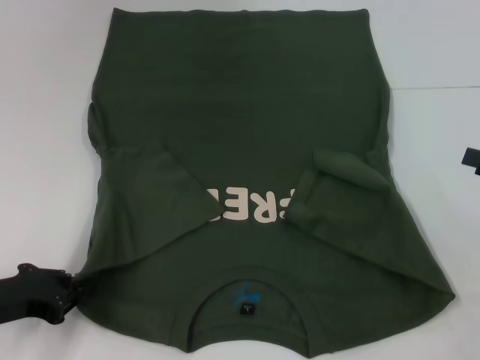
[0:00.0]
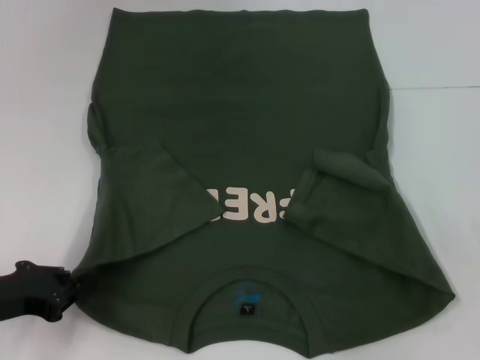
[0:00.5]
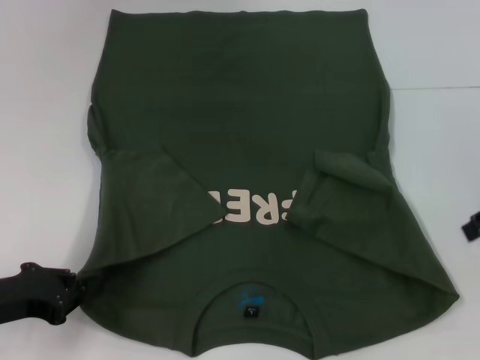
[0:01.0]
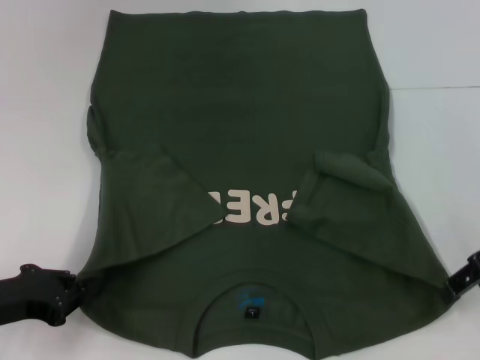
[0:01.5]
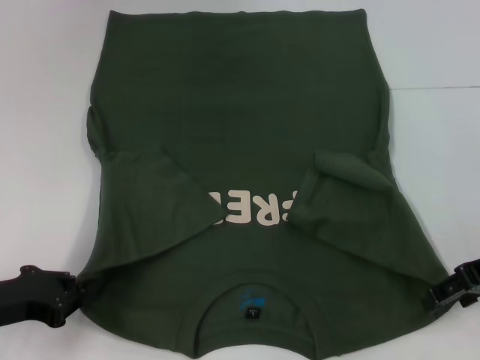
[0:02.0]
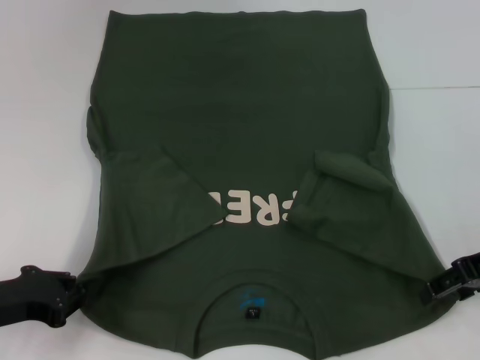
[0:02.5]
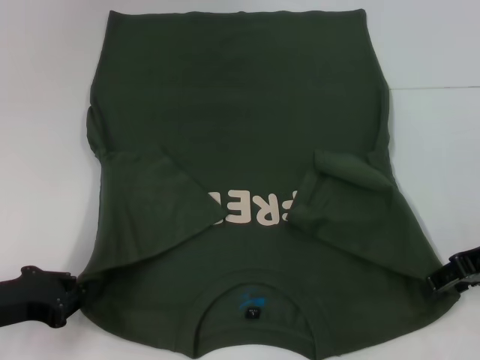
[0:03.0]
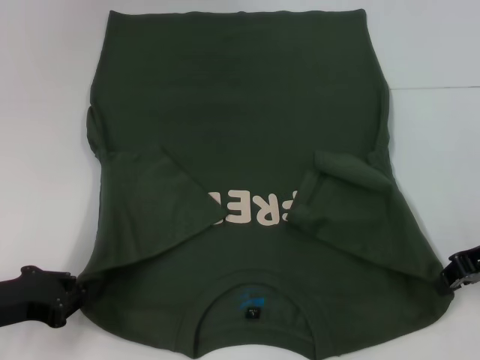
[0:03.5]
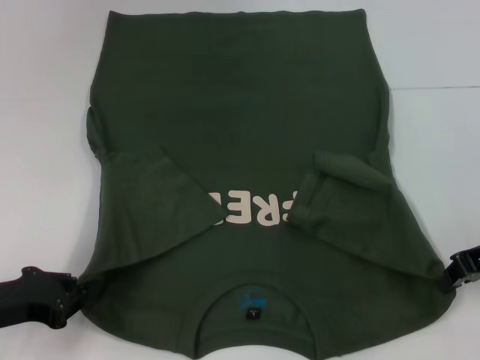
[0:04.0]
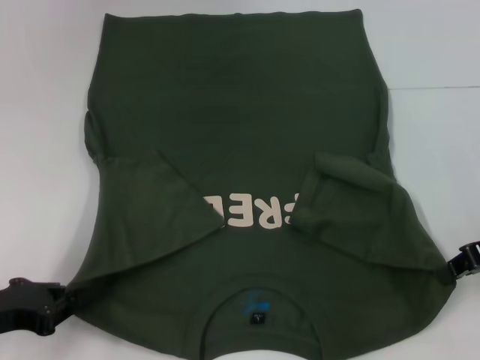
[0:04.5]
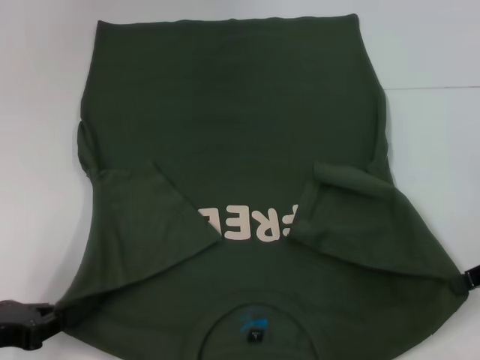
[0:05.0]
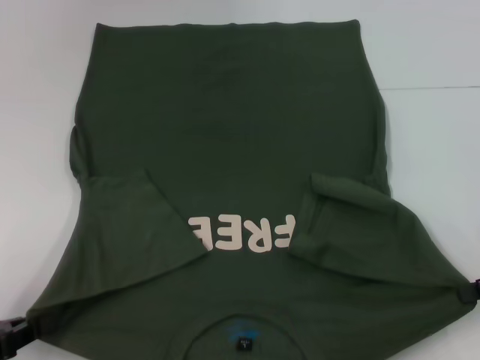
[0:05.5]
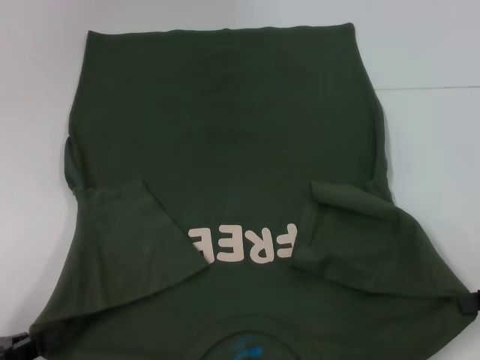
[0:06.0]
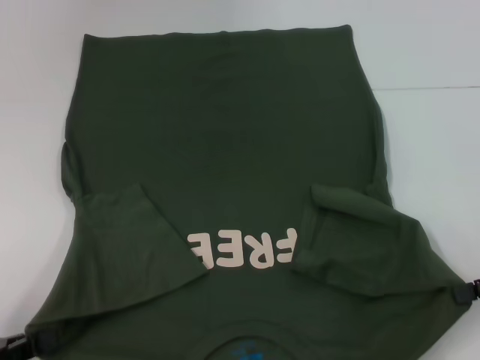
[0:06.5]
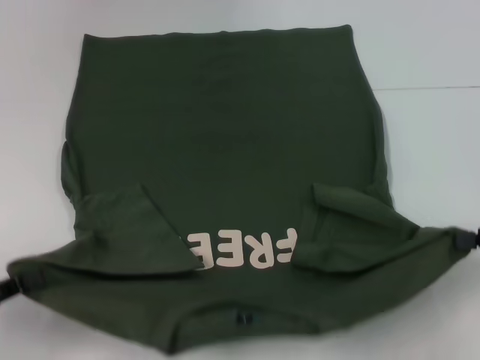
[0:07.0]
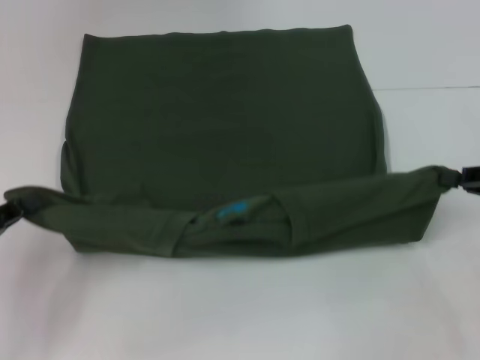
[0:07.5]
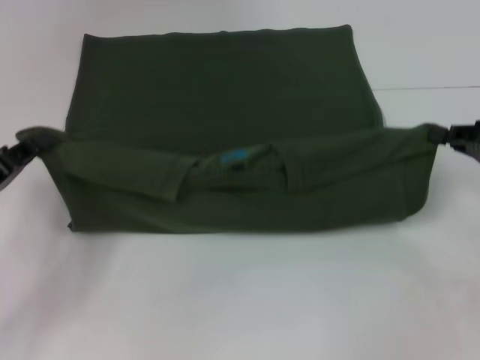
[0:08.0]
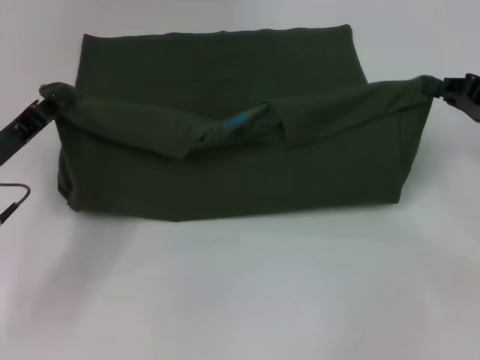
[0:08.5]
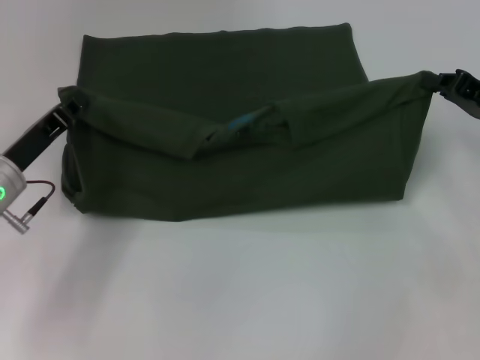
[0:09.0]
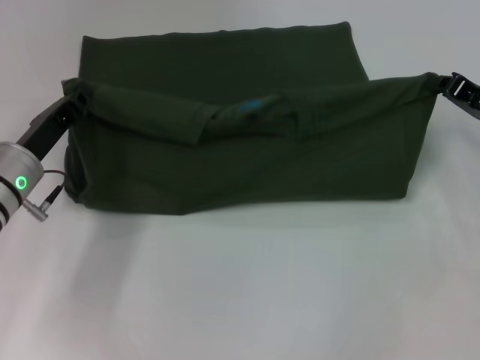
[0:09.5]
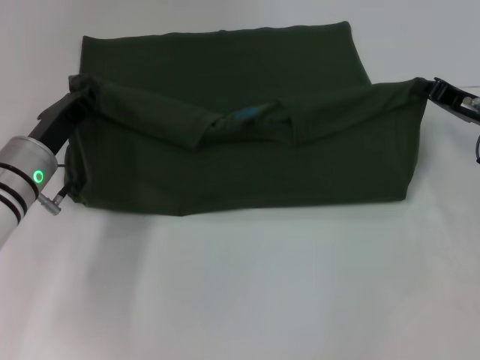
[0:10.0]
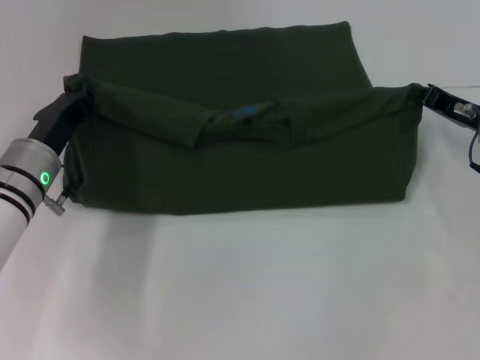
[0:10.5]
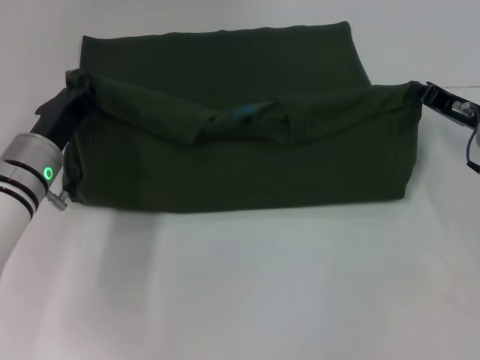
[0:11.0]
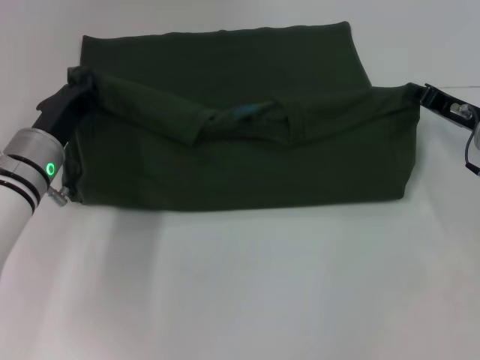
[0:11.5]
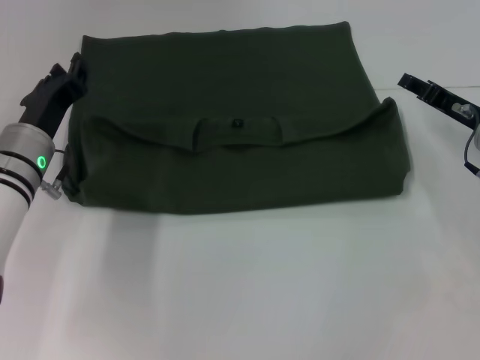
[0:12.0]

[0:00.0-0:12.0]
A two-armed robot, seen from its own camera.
Step, 0:00.5 to 0:04.0: Grab the bottom right corner with your right hand.
0:00.0 to 0:02.0: The right gripper travels to the left by approximately 10 cm.
0:02.0 to 0:04.0: The right gripper closes.
0:04.0 to 0:06.0: The right gripper shifts some 10 cm to the right and backward. Meanwhile the left gripper goes roughly 5 cm backward.
0:06.0 to 0:08.0: The right gripper travels forward by about 5 cm; the left gripper travels forward by some 10 cm.
0:08.0 to 0:10.0: The left gripper shifts some 10 cm to the right and forward, while the right gripper travels forward and to the left by about 10 cm.
0:10.0 to 0:12.0: The right gripper opens up.

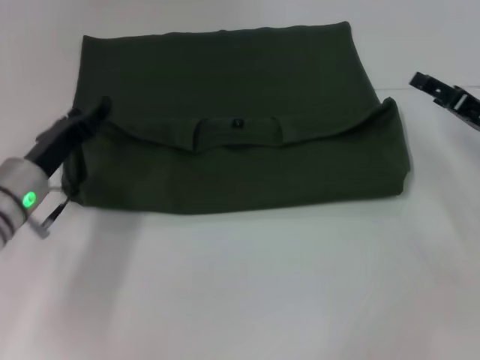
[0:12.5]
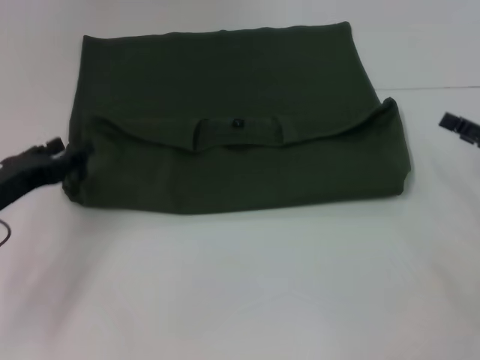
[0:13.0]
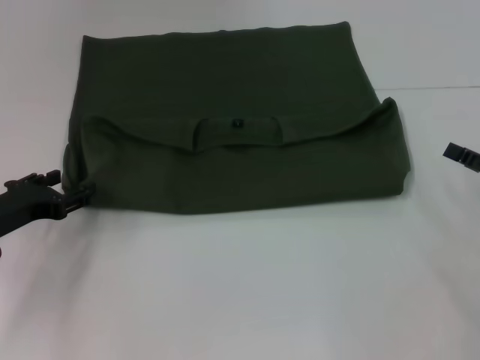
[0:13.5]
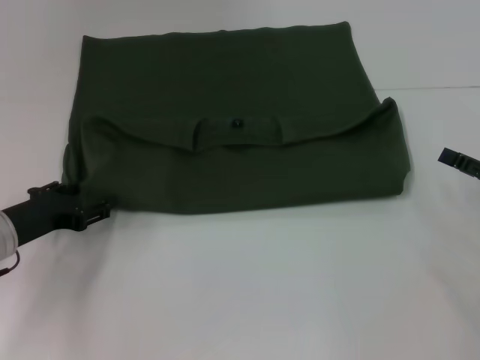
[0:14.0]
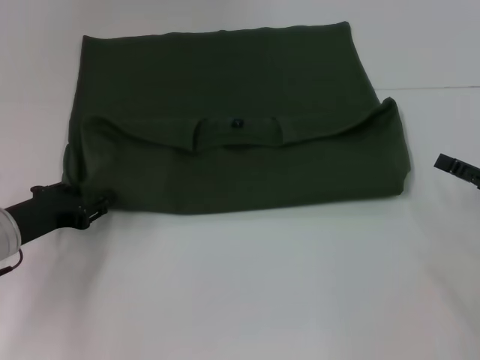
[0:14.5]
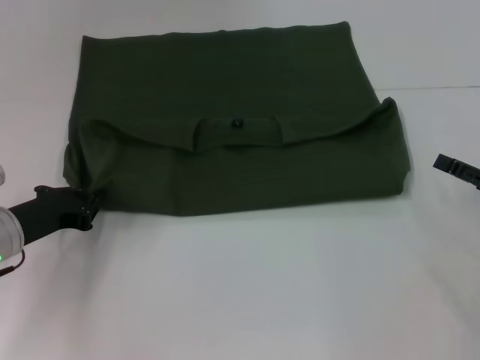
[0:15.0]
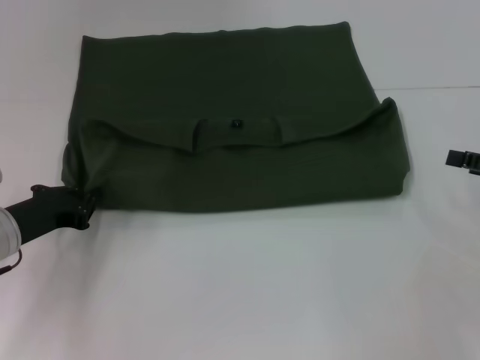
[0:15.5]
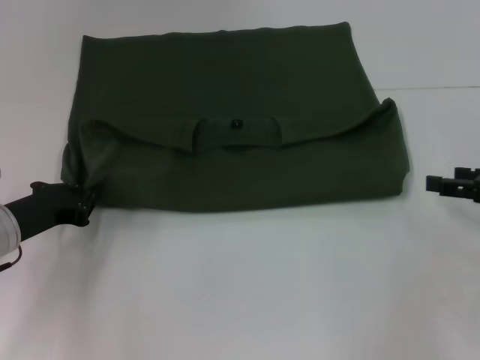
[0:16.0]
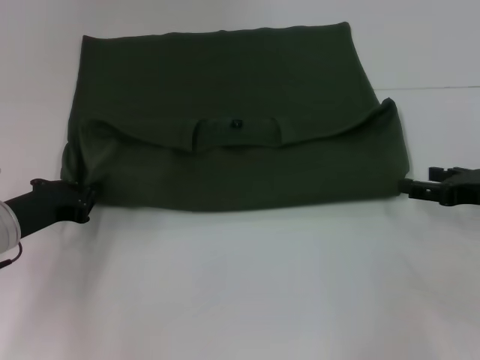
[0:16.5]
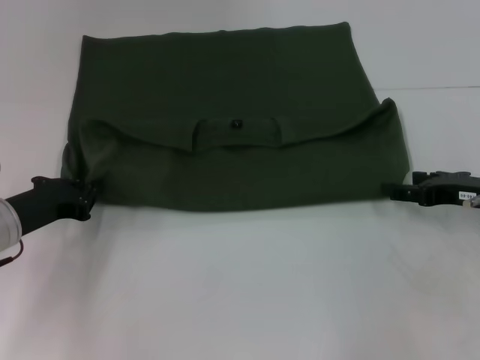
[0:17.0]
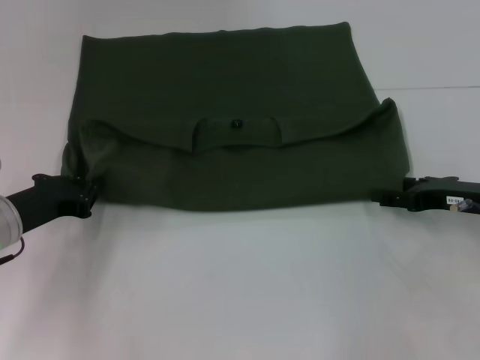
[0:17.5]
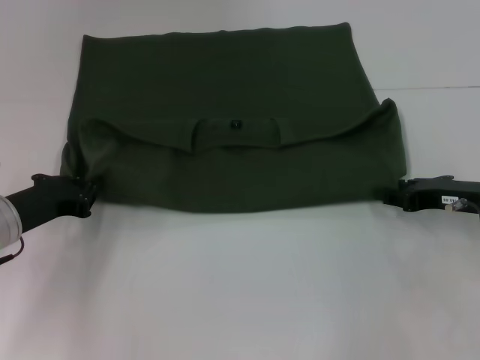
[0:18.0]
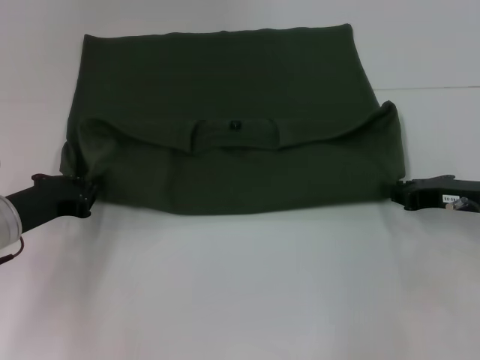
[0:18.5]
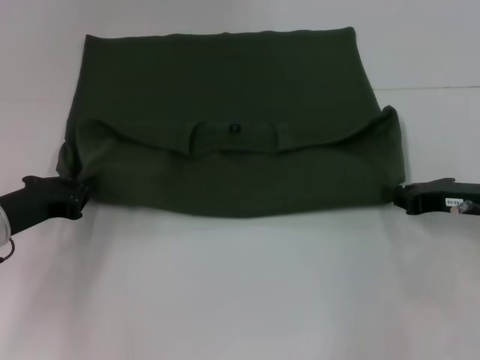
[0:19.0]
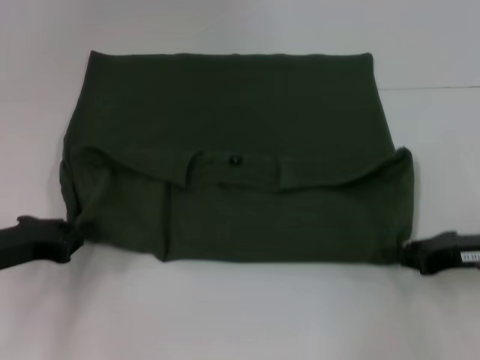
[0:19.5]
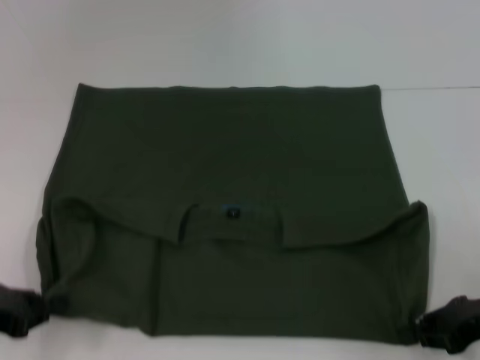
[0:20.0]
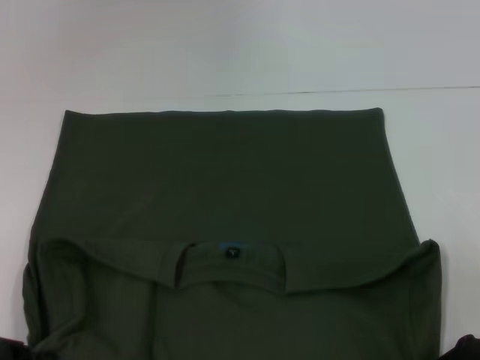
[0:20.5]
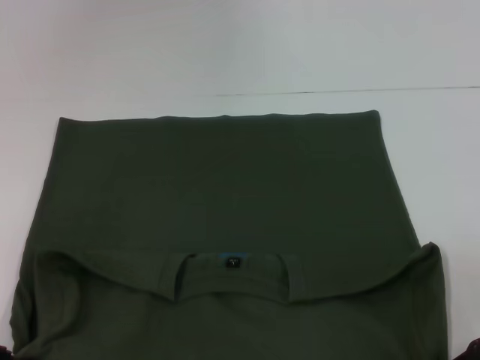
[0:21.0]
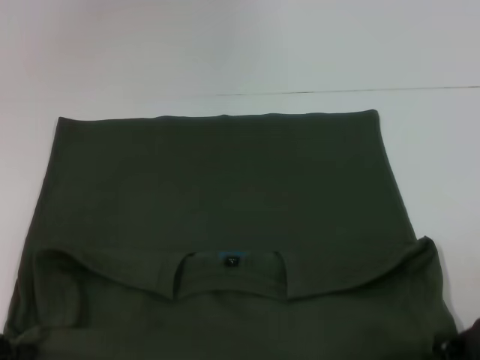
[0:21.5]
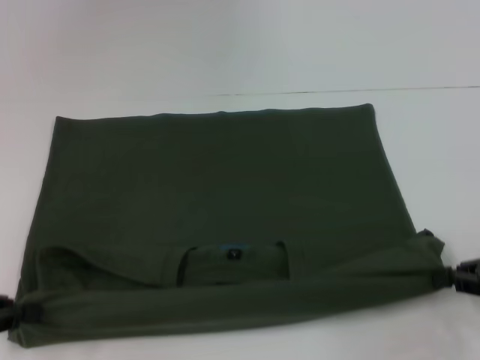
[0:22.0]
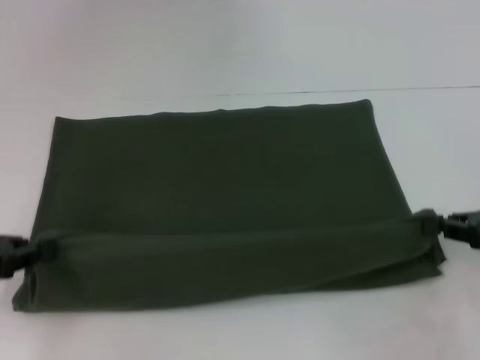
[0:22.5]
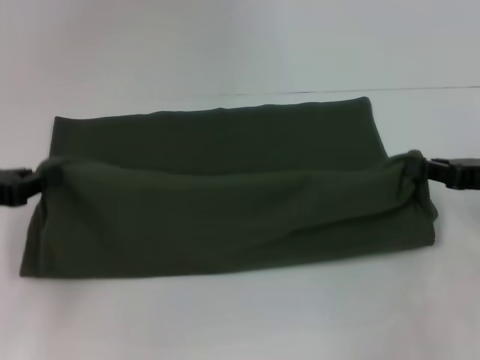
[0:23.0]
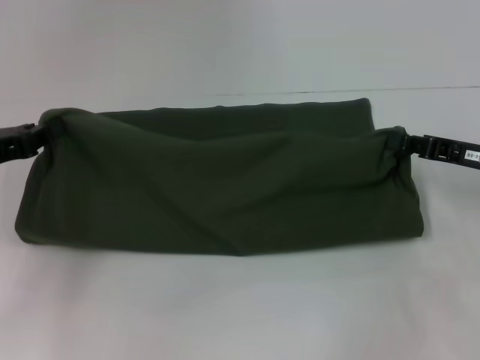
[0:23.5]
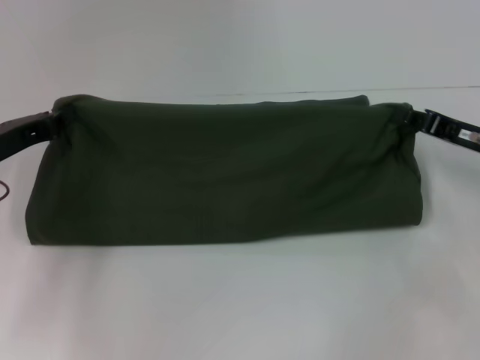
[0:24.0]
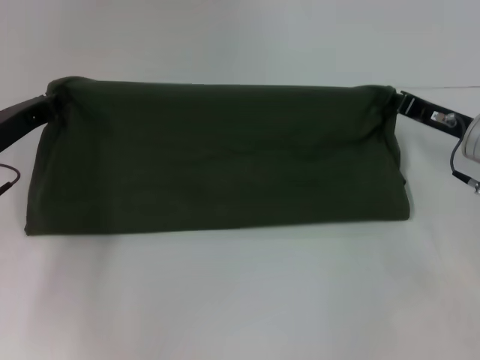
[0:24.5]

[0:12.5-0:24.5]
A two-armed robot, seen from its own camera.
Step, 0:12.5 to 0:20.5: Pull the clothes with your left hand.
Step, 0:12.5 to 0:20.5: Pull the clothes with your right hand.
0:12.5 to 0:14.5: The left gripper moves about 5 cm. Meanwhile the right gripper shifts roughly 10 cm backward.
0:14.5 to 0:16.5: The right gripper ends up about 5 cm from where it was; the left gripper closes up.
0:16.5 to 0:18.5: The right gripper closes its fingers.
0:18.5 to 0:20.5: The left gripper heads backward and to the left, covering approximately 15 cm, while the right gripper is displaced backward by about 10 cm.
0:20.5 to 0:22.5: The left gripper travels forward by about 5 cm. Meanwhile the right gripper ends up roughly 5 cm from where it was.
0:22.5 to 0:24.5: The left gripper shifts roughly 10 cm forward and to the right. Meanwhile the right gripper shifts some 10 cm forward and to the left.

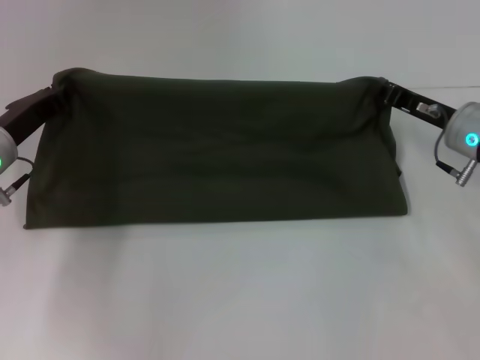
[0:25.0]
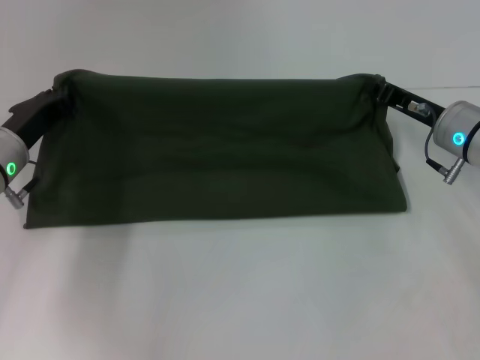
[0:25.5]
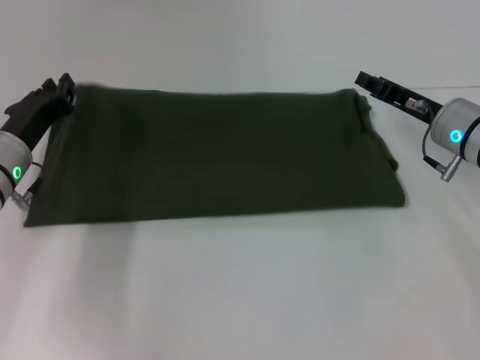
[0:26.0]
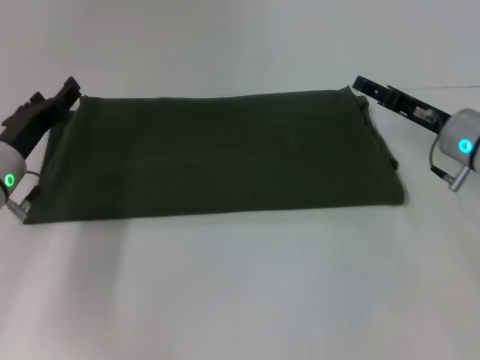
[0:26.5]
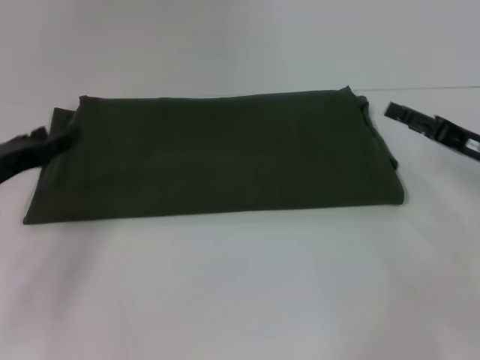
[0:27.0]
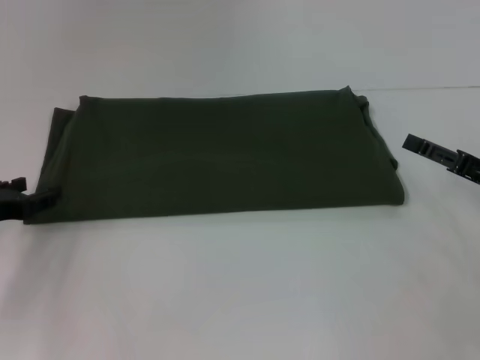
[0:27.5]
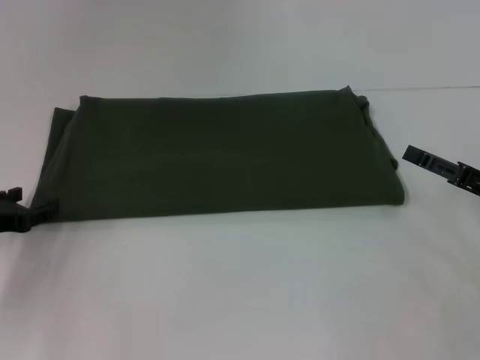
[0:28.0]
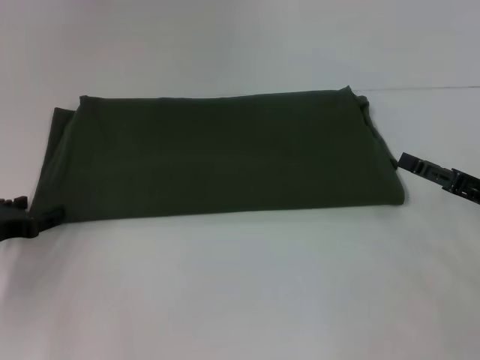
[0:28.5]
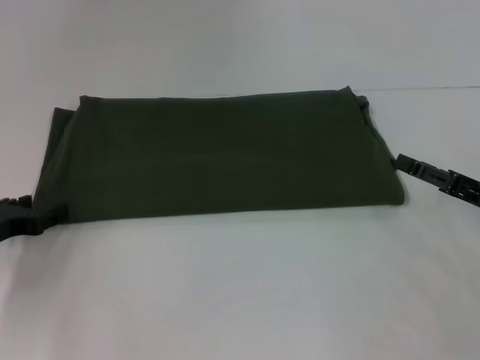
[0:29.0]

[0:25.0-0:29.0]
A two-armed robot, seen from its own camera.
0:25.0 to 0:27.0: The two grippers go about 5 cm backward. The left gripper opens its fingers, while the right gripper opens its fingers.
0:27.0 to 0:29.0: The right gripper changes place by roughly 5 cm.
